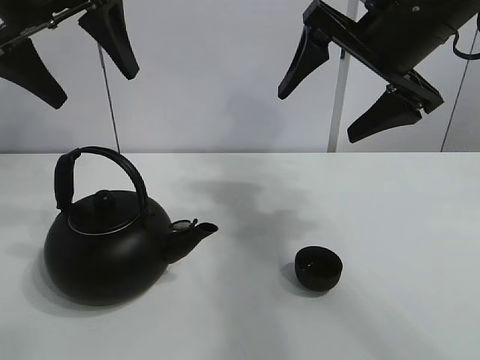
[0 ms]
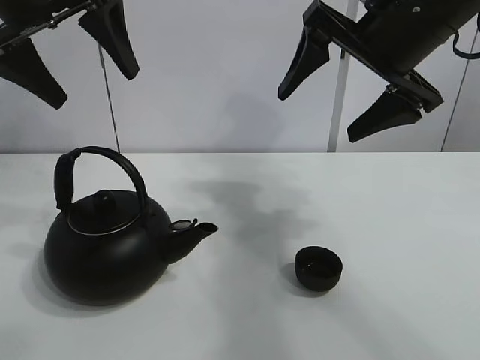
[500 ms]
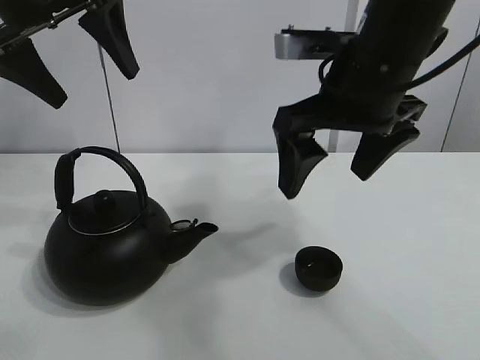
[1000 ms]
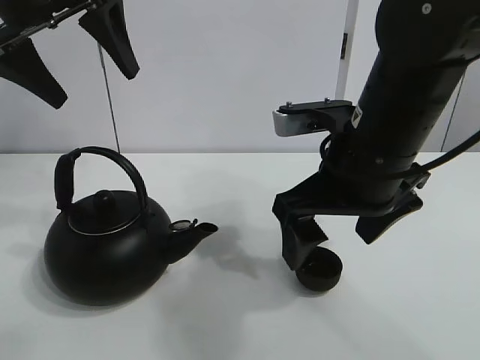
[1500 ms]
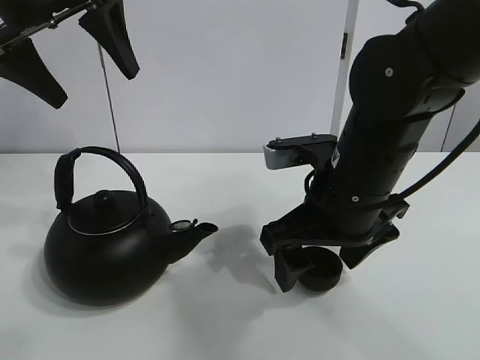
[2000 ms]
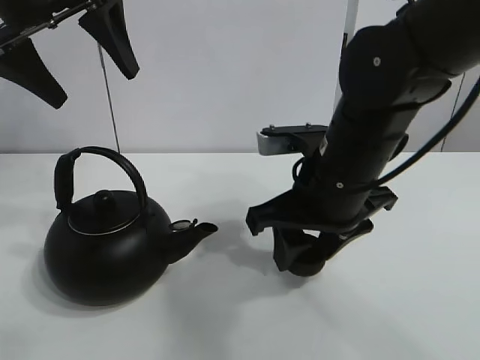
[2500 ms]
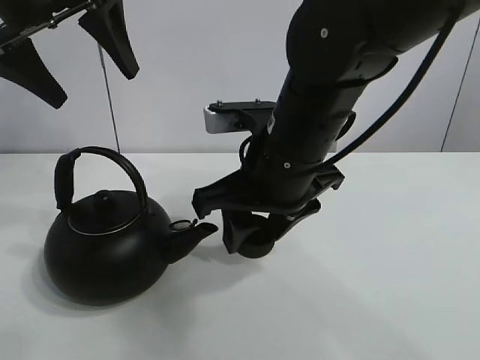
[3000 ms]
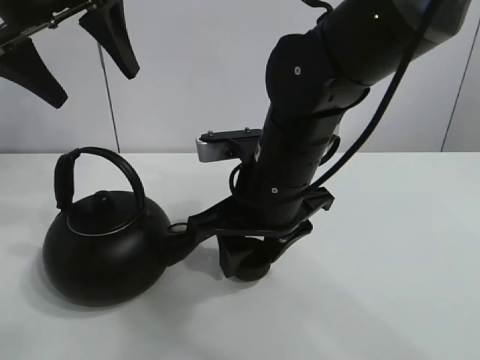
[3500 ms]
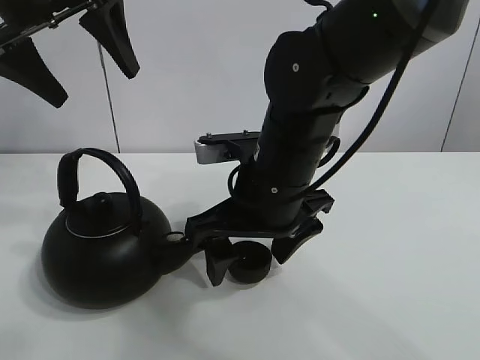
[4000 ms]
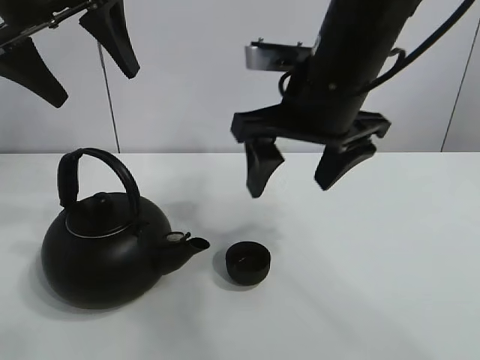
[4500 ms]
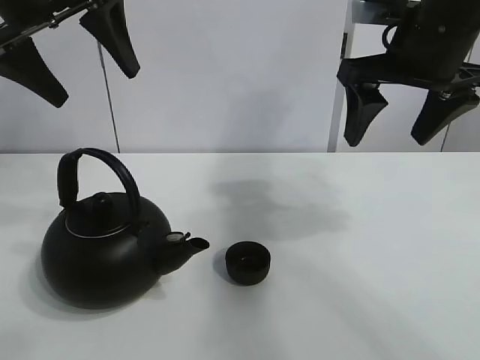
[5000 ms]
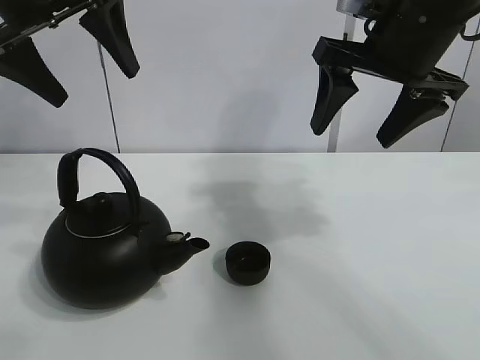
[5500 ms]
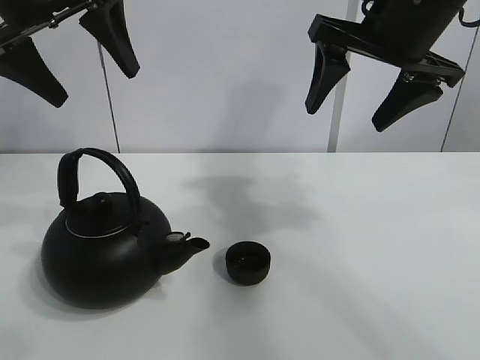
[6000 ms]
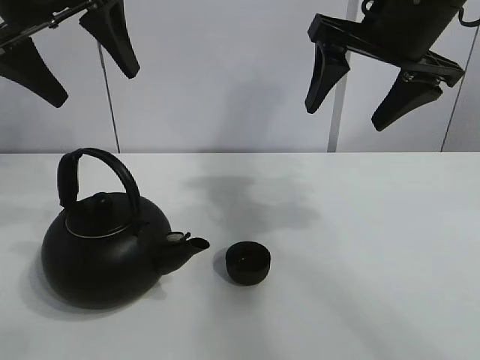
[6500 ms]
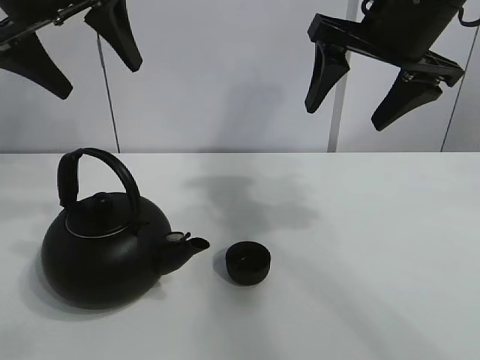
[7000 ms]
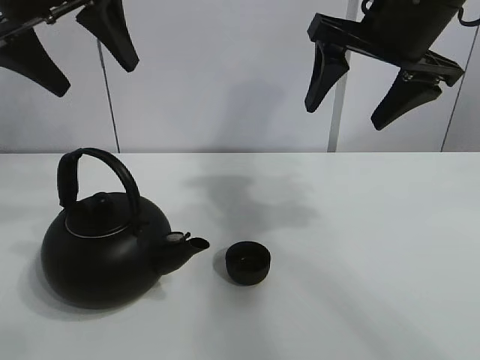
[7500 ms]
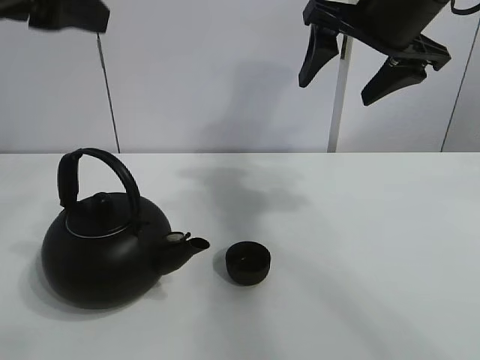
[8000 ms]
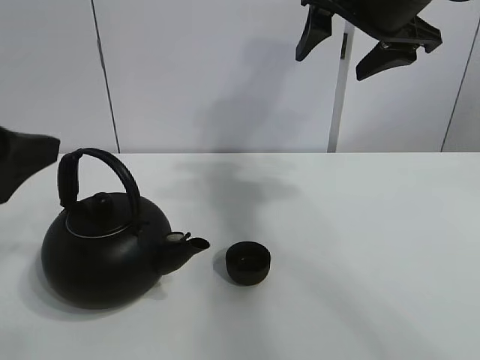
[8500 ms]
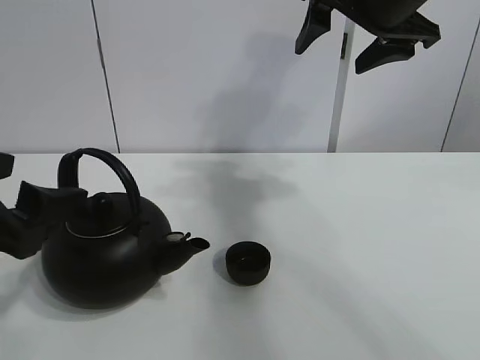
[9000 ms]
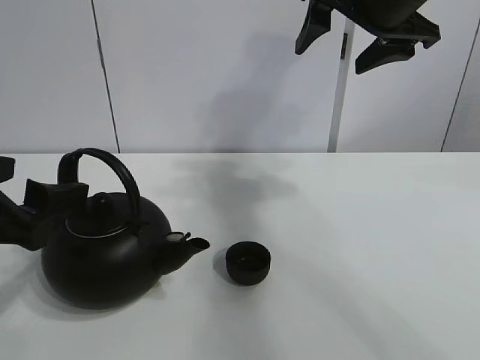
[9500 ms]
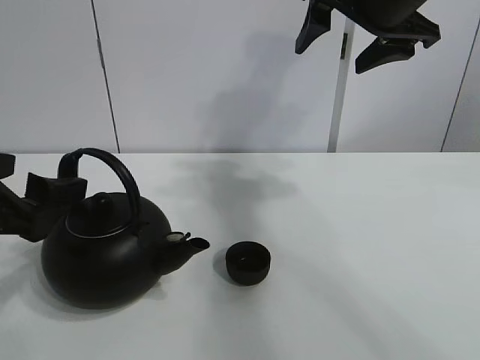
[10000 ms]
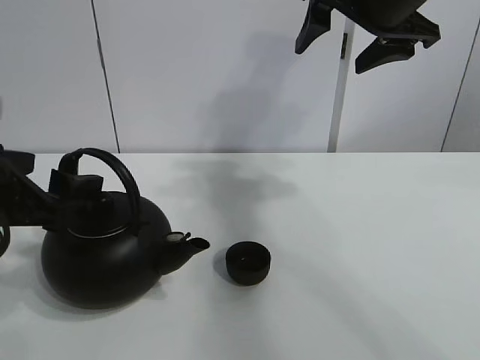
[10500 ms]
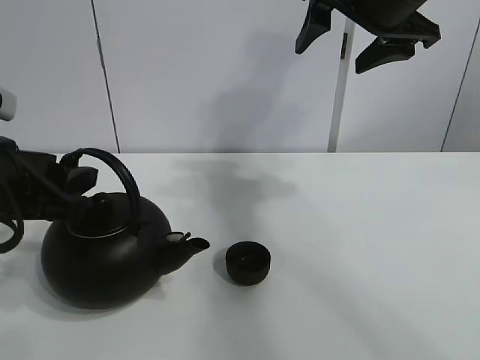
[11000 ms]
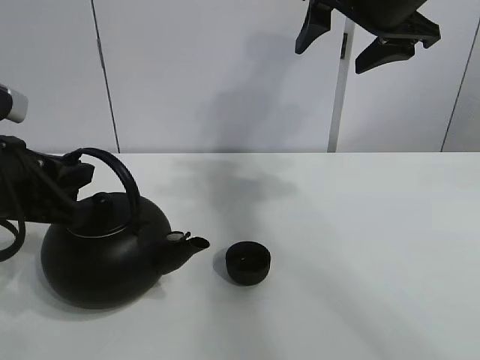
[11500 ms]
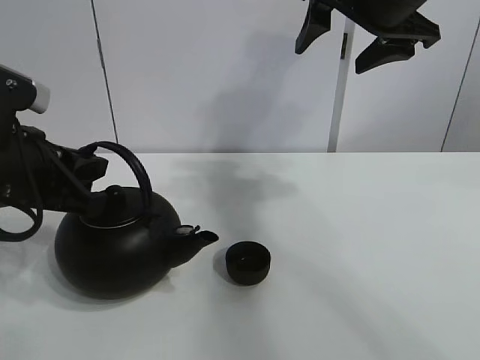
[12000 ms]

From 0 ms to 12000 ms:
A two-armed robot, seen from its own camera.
Task of the whole recording: pour tea into the teacup.
Step, from 0 ms to 2000 ms: Pick up the teacup with the right gripper.
Step, from 2500 ms to 4000 ms: Place the teacup in the center of view with the right gripper.
Step, from 4500 ms to 11500 ms: Pick up the teapot with the left gripper.
From 2000 ms to 4000 ms: The right gripper goes some 5 cm to the left, and closes and opens again.
From 4000 ms to 6000 ms: The right gripper goes about 20 cm upward and to the right.
From 6000 ms to 8000 ms: The left gripper goes some 10 cm backward.
From 8000 ms to 10000 ms: The left gripper travels downward by some 20 cm.
From 10000 ms to 12000 ms: The left gripper changes place by roughly 5 cm, and closes its fingers.

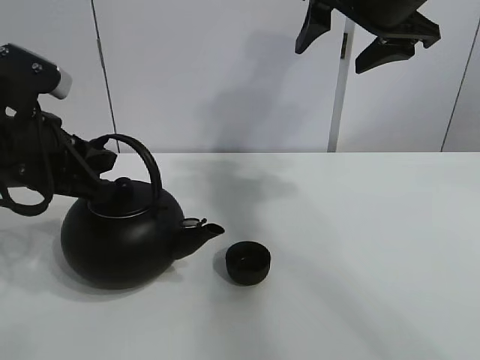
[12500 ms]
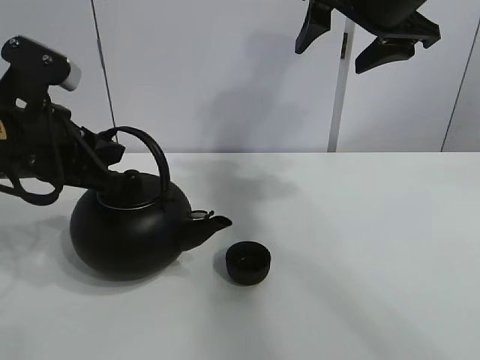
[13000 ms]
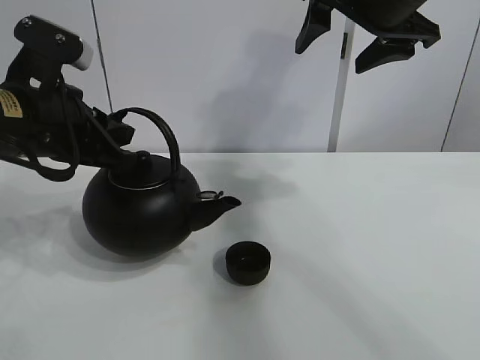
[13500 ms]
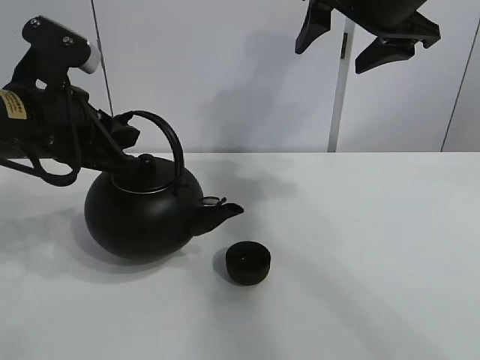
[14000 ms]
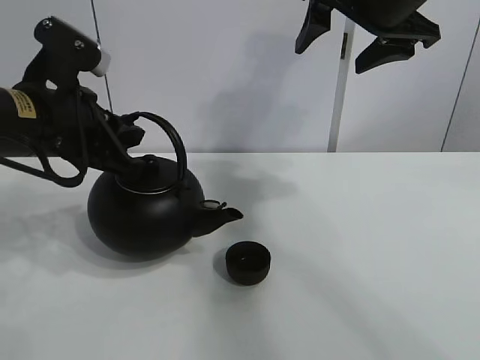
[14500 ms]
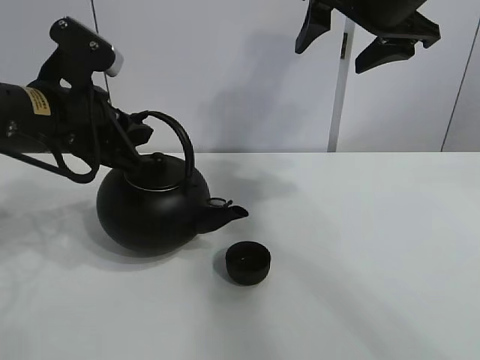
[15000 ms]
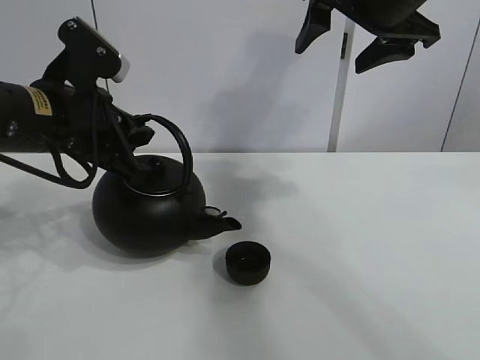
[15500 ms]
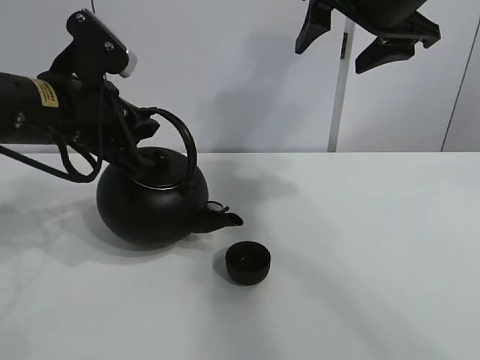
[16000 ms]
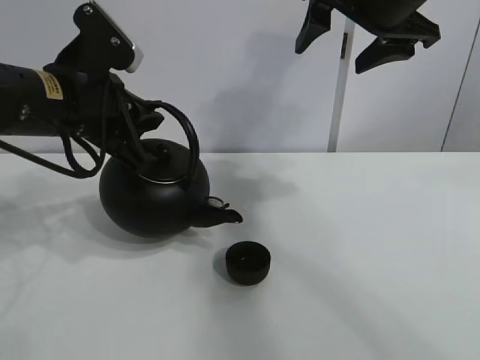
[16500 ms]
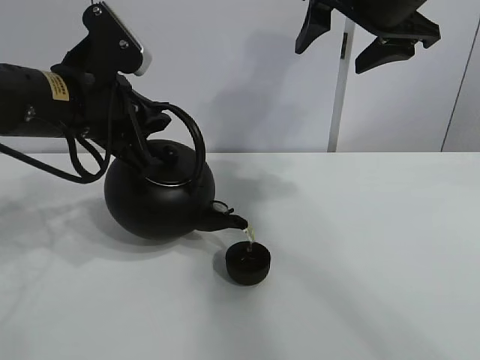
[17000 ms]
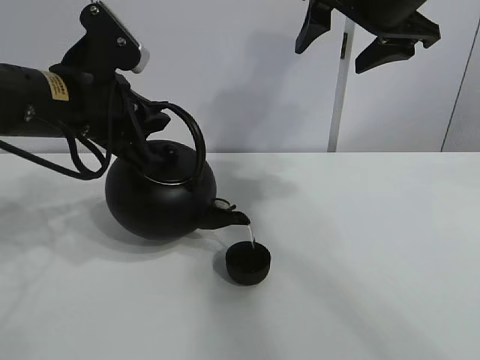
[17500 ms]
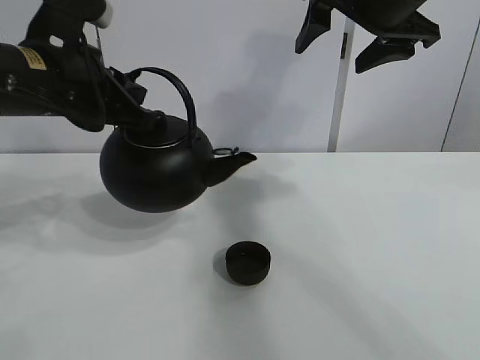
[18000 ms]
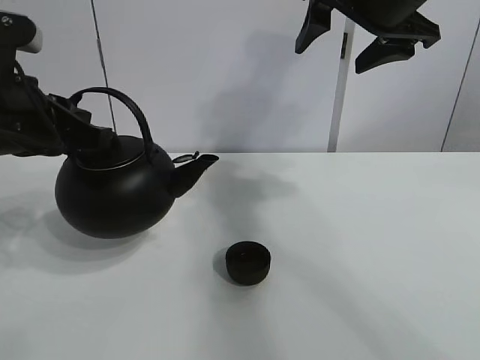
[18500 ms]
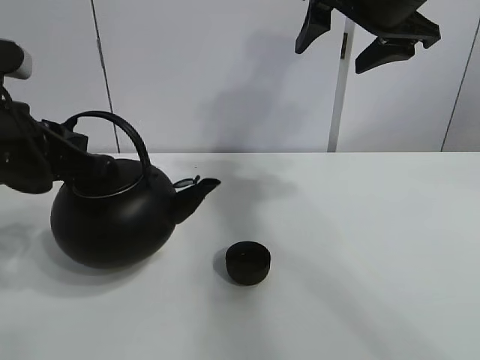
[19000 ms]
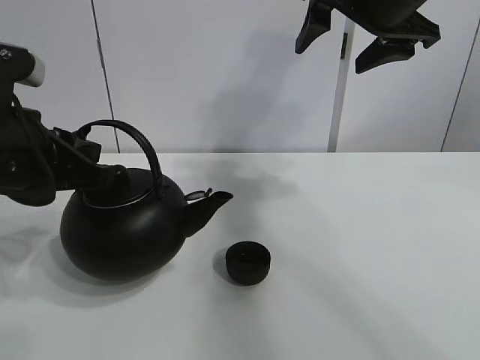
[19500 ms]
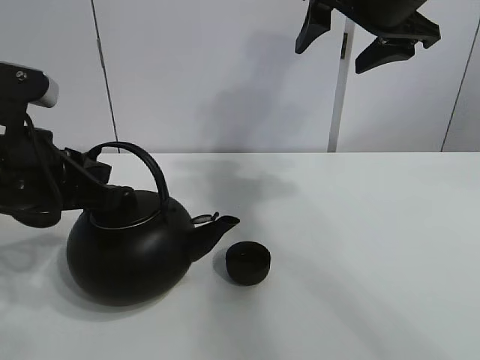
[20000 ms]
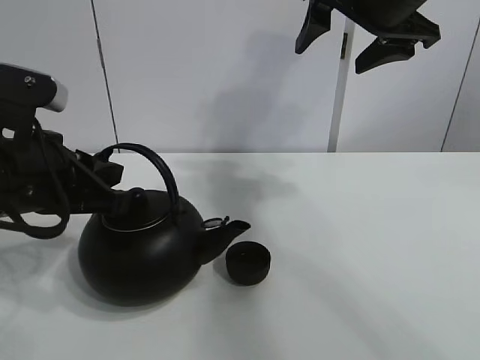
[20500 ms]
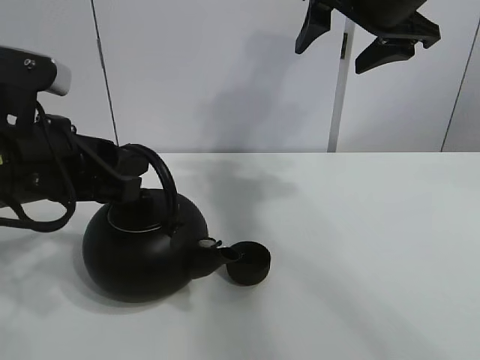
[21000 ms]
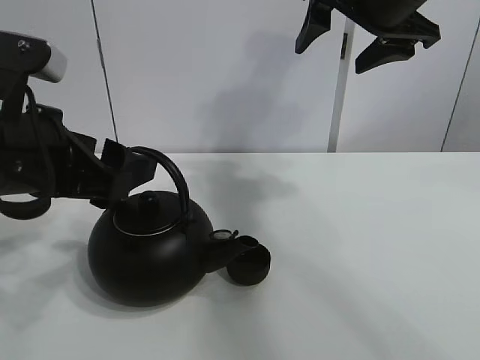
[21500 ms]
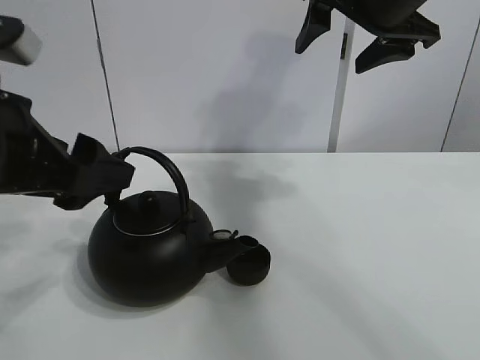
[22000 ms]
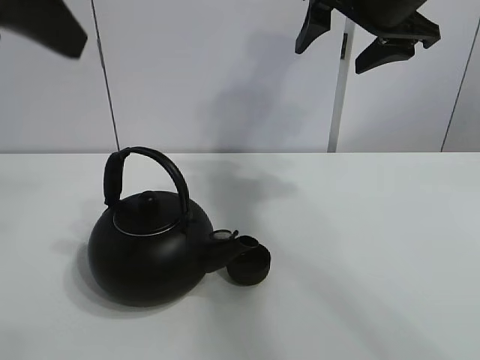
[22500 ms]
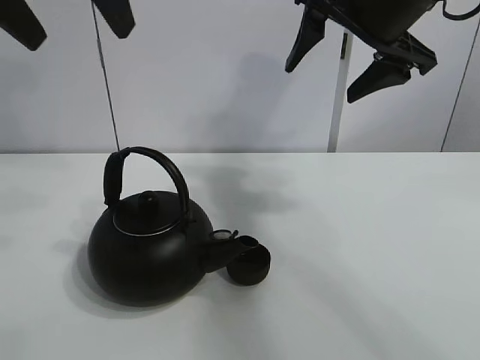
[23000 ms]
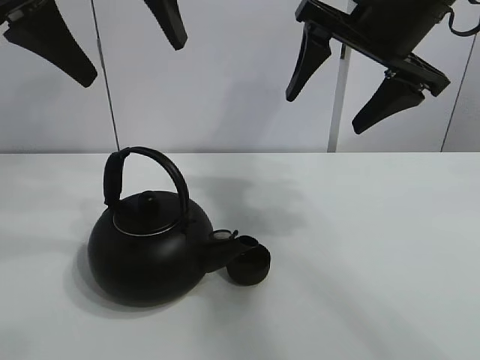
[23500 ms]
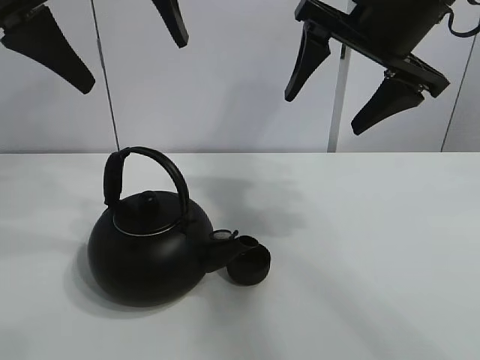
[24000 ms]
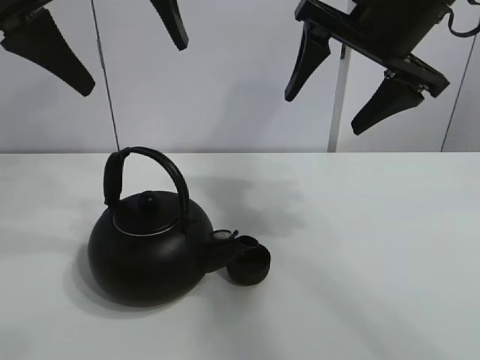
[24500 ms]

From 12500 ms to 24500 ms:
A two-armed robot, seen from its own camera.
Task of the whole recording: pour tea into the teacup.
Step, from 12500 ms to 17500 ms: Pour tea into the teacup with the left gripper.
From 12500 ms to 14500 ms: The grippers make only small movements.
From 14500 ms to 16500 ms: The grippers move only a little.
From 16500 ms to 18500 ms: The left gripper changes place by approximately 5 cm.
From 18500 ms to 20500 ms: The left gripper ends up about 5 cm from where it was.
From 20500 ms to 22500 ms: The left gripper heads upward, covering approximately 20 cm, and opens its fingers.
From 22500 ms to 24500 ms: The left gripper shifts roughly 10 cm forward and to the right.

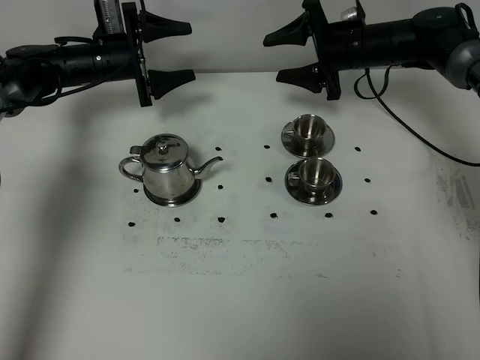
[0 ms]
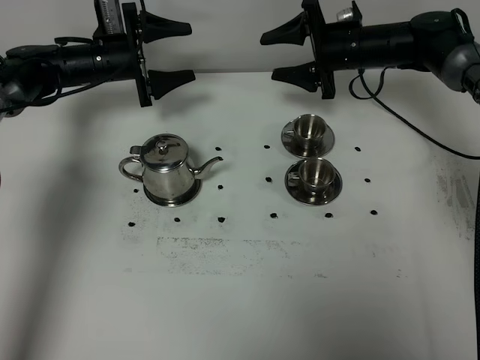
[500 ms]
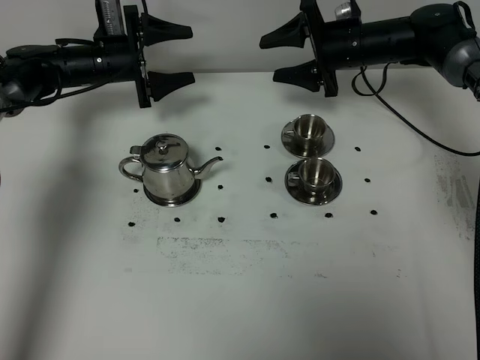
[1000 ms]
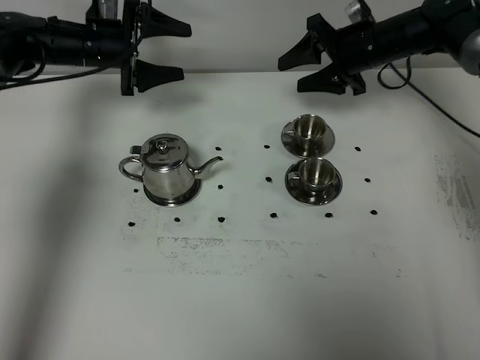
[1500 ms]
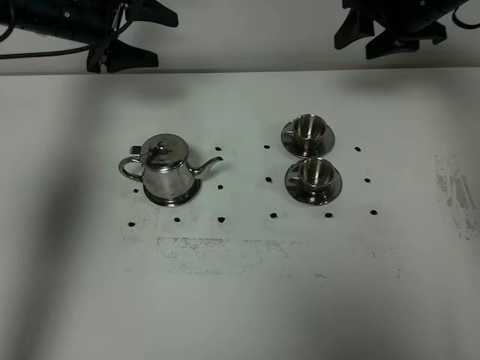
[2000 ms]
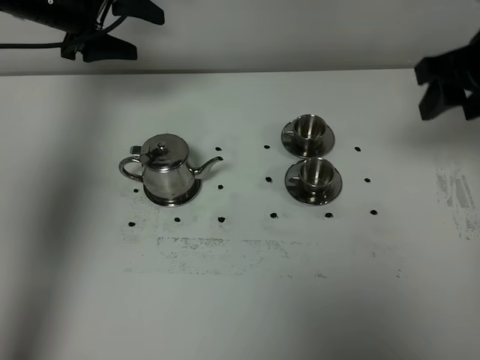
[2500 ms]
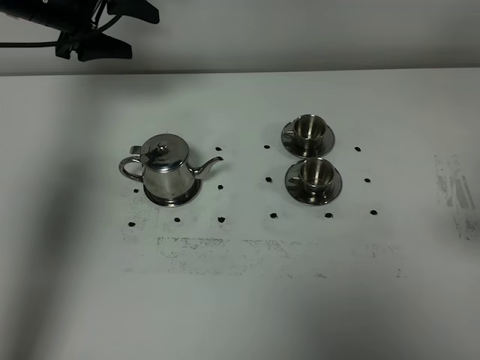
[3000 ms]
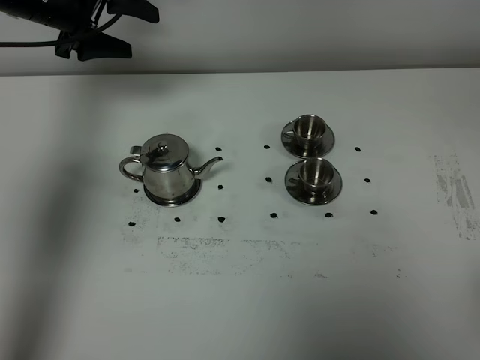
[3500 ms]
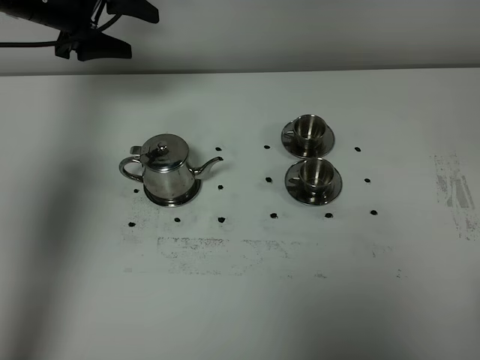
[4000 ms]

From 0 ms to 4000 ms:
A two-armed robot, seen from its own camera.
Task of the whole recording: grasp the stainless steel teapot and pour the tea into the two stainless steel teacups one by one, put the stainless steel teapot back in its original place.
From 0 ms to 2000 ms: The right gripper moves upward, to the right and backward, some 15 cm; the left gripper travels upward by approximately 10 cm.
From 2000 ms to 4000 ms: The right gripper goes some 50 cm backward.
